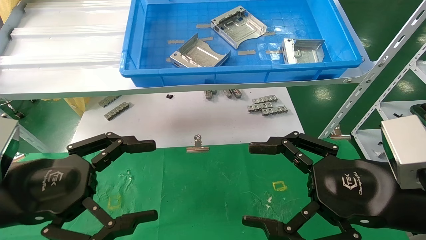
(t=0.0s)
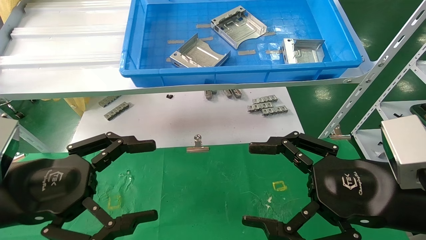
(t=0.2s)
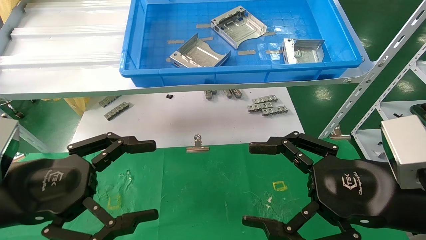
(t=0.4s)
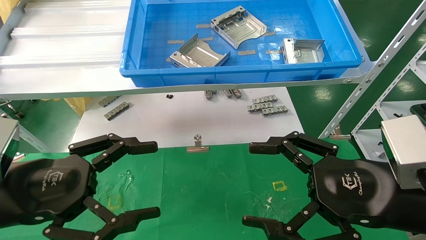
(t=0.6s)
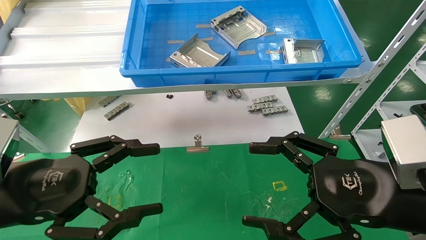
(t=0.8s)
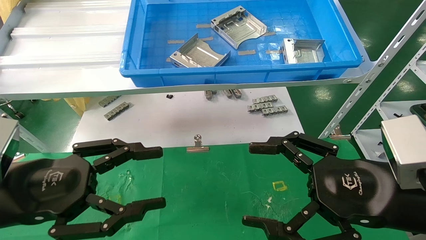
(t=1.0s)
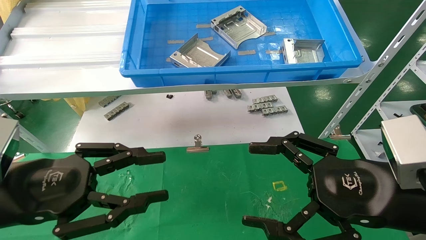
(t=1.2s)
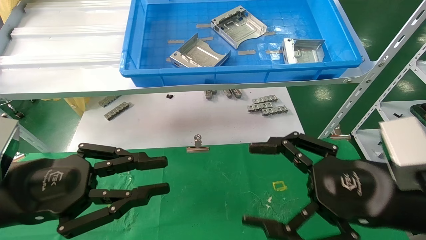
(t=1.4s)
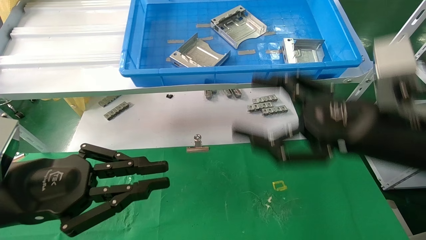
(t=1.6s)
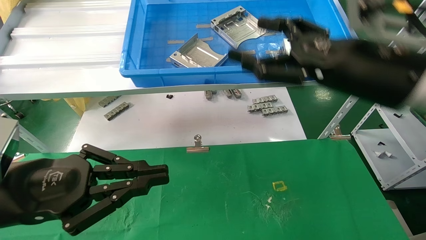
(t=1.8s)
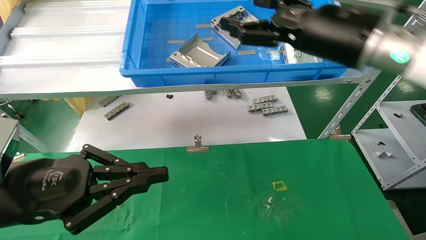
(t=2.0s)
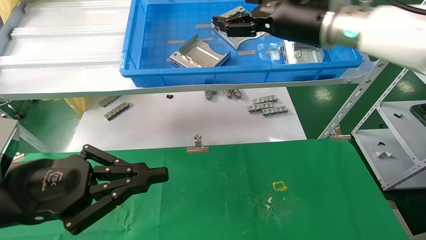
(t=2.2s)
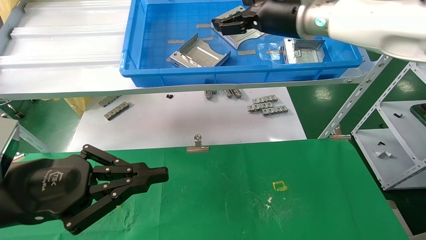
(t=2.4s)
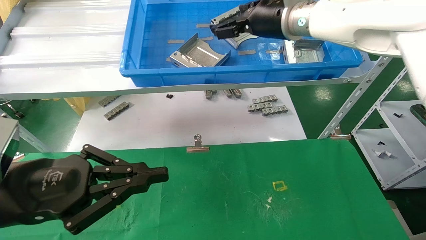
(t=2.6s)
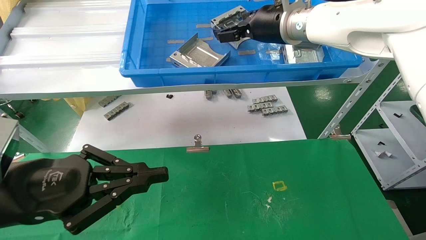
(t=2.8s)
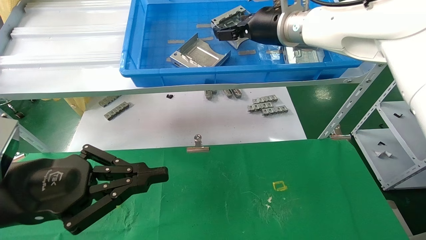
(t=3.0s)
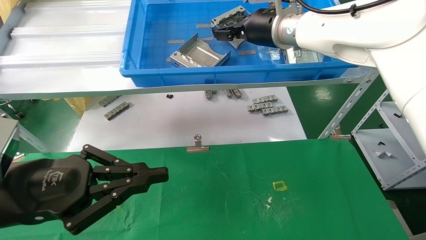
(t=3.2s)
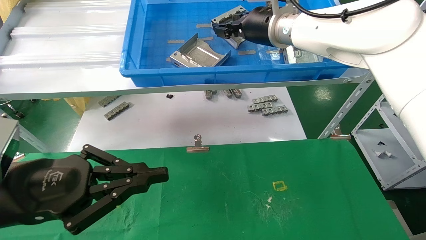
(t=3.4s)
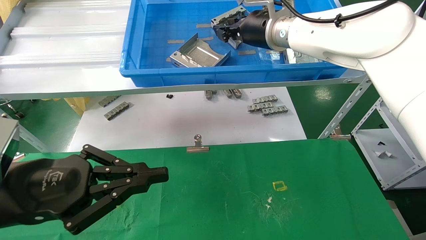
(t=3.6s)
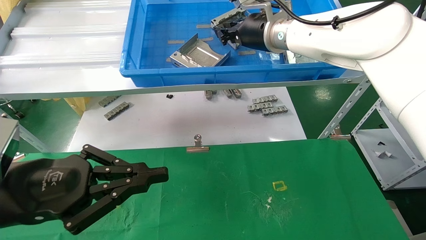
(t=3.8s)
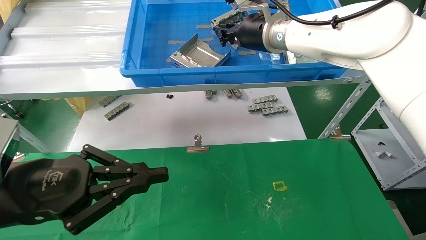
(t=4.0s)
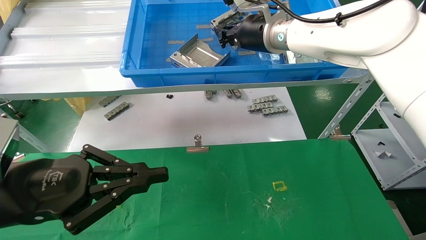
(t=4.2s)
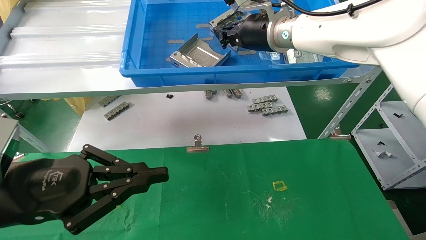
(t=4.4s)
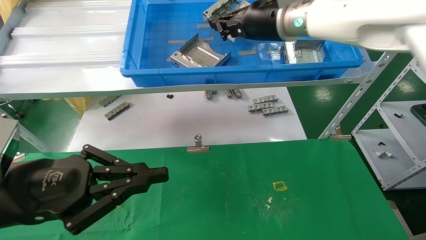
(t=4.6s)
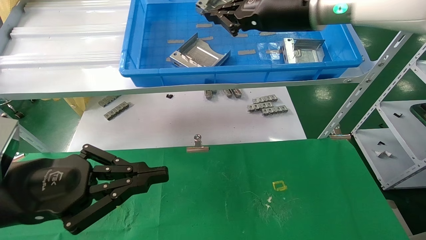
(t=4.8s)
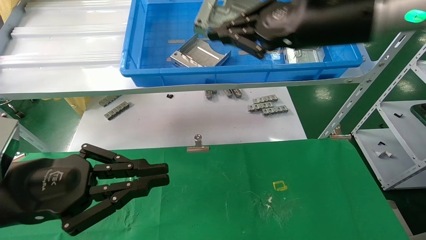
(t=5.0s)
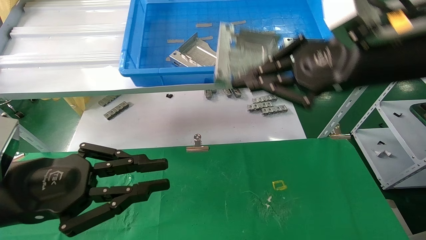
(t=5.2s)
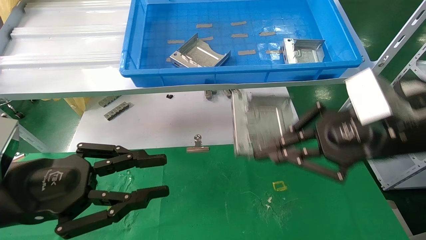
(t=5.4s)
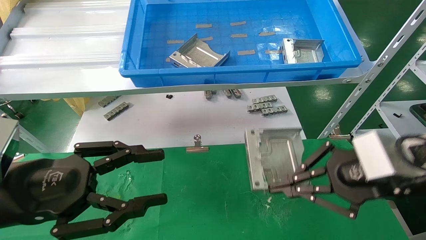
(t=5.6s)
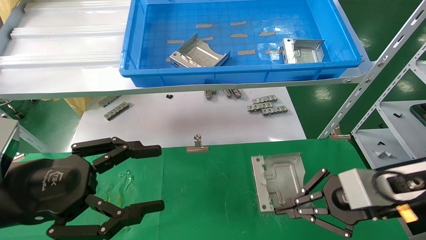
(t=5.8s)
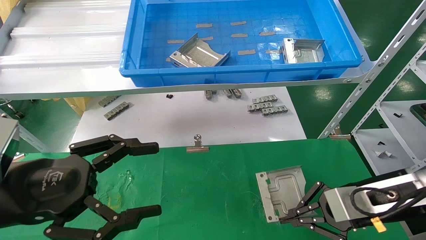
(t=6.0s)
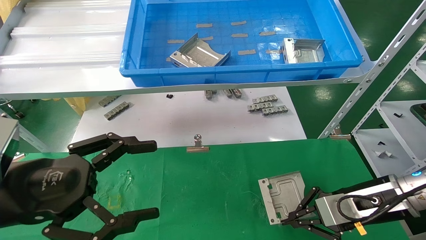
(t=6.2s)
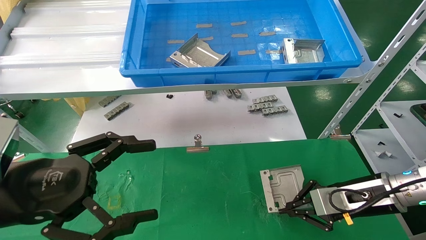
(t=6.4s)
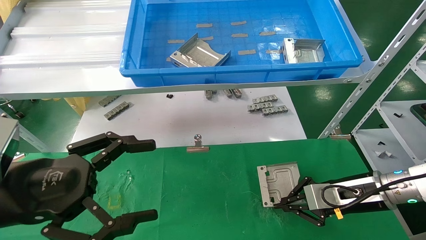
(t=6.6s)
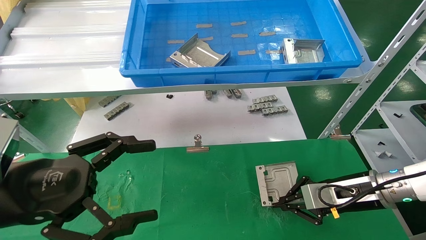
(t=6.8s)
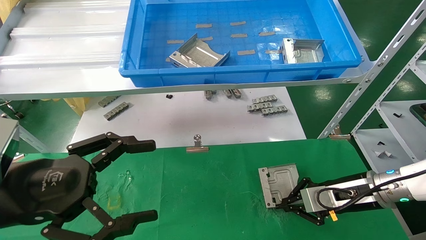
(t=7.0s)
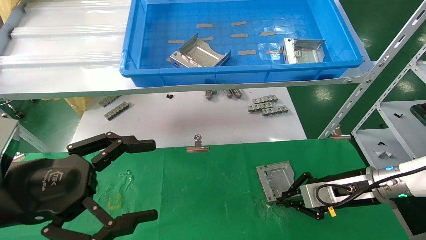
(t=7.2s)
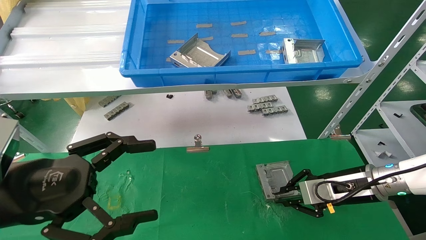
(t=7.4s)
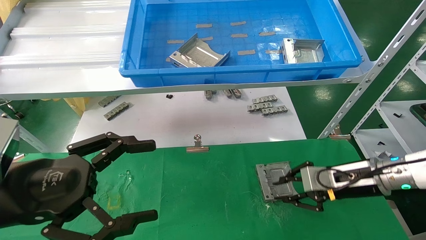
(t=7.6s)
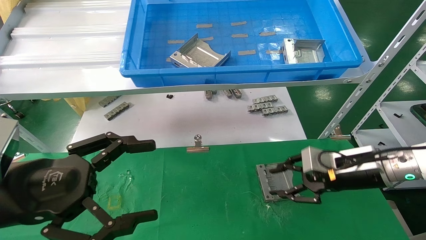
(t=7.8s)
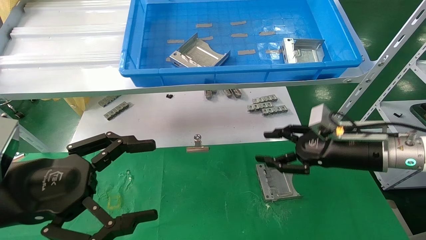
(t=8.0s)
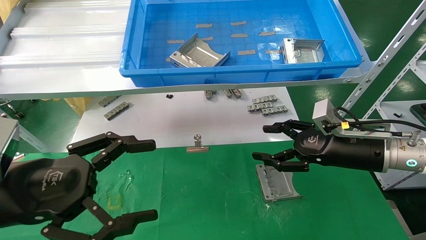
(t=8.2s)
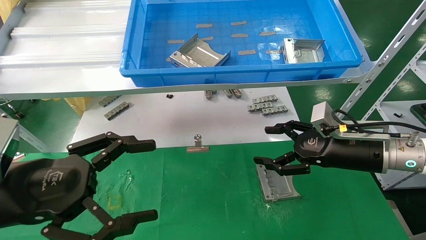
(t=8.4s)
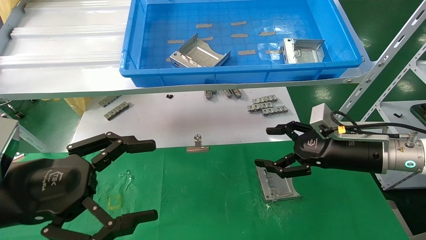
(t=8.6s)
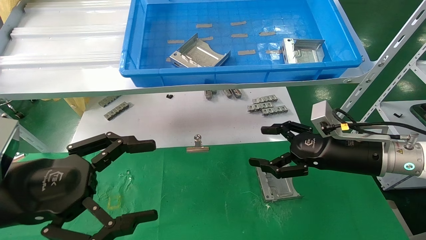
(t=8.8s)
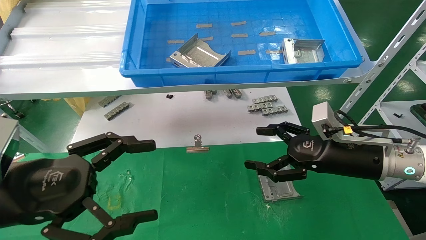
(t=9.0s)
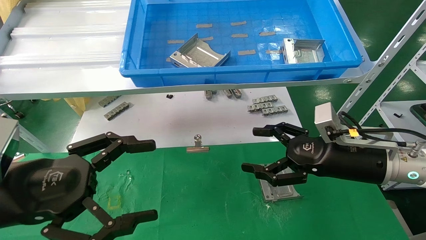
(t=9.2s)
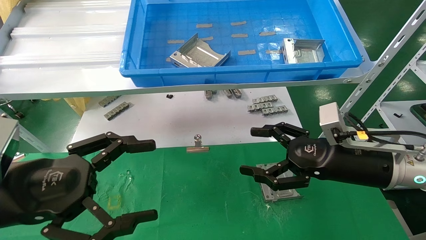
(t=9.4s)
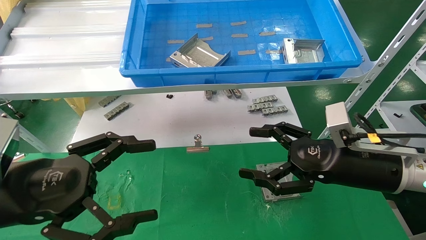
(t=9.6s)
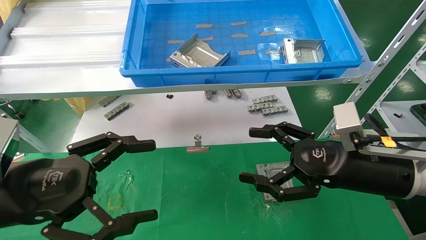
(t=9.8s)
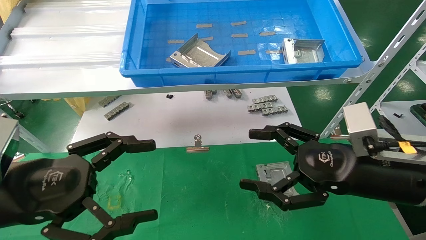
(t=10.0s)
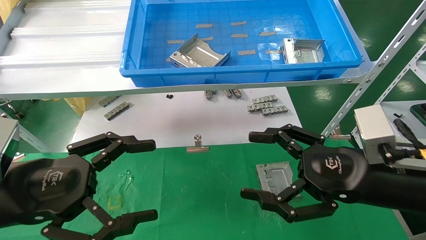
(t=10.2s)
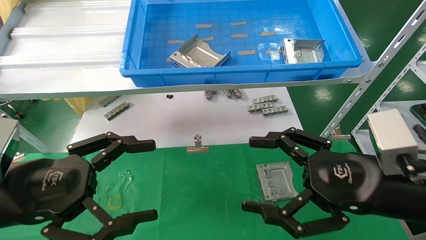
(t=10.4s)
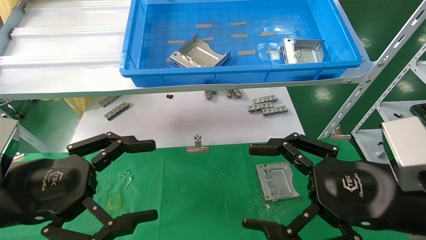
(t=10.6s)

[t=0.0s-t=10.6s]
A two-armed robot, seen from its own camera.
Task of the whole recording: use the mechanical arm to pick up the parts and place them on the table.
Step, t=1.6s to t=4.6s: Pick up the hard drive bracket from the feeding area.
Step, t=4.8s to t=7.6s: Place the hard drive bracket into the box.
t=0.0s to t=1.6s: The right gripper is displaced upward and forward by roughly 10 cm; the left gripper closes up.
t=1.6s to t=3.0s: The right gripper is displaced forward, upward and to the left by some 25 cm.
t=3.0s to t=4.6s: The right gripper closes.
t=4.6s to t=6.0s: The left gripper opens; the right gripper travels downward, to the right and backward by approximately 35 cm.
t=6.0s to t=7.6s: The right gripper travels forward by about 5 cm.
t=7.6s to t=9.0s: The right gripper shifts by roughly 5 cm, and opens its fingers.
t=9.0s to t=10.6s: The right gripper heads backward, covering about 15 cm.
